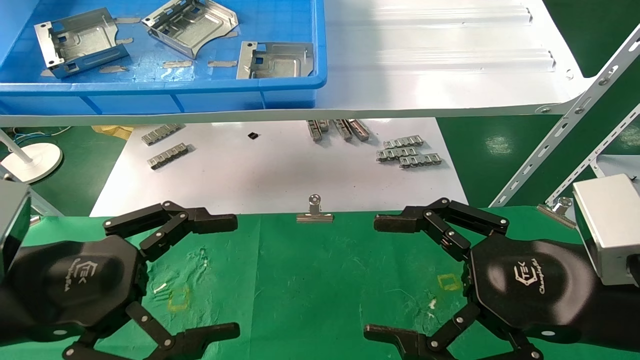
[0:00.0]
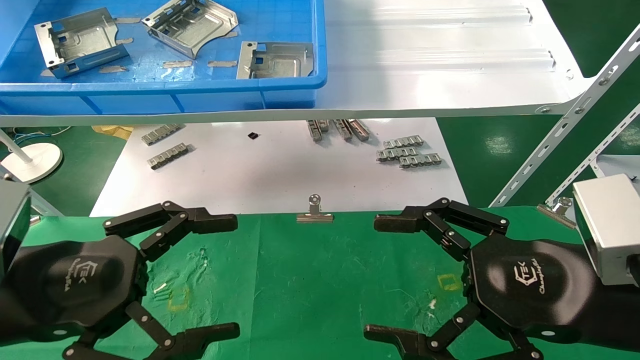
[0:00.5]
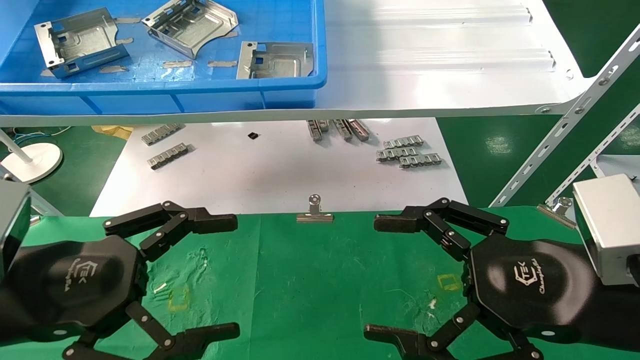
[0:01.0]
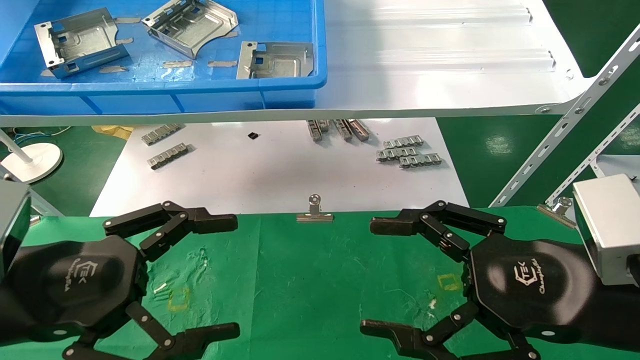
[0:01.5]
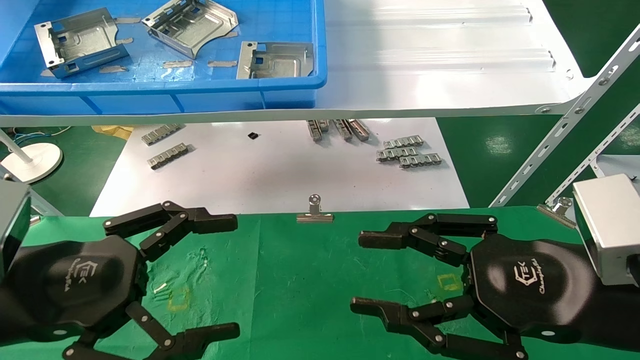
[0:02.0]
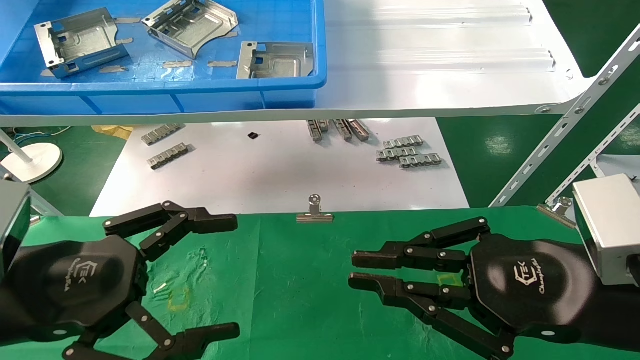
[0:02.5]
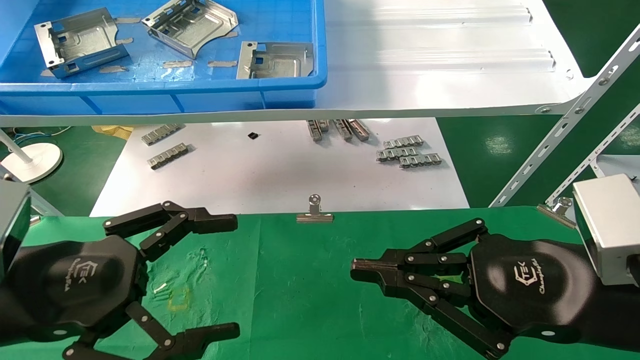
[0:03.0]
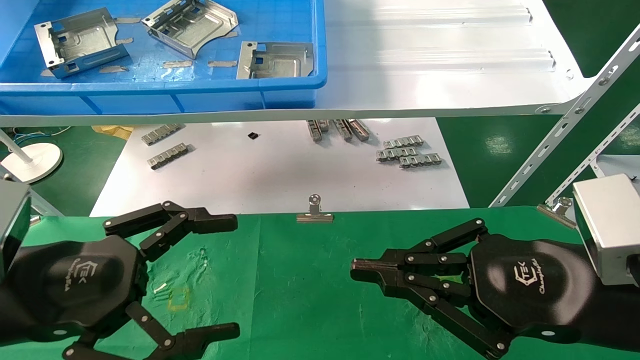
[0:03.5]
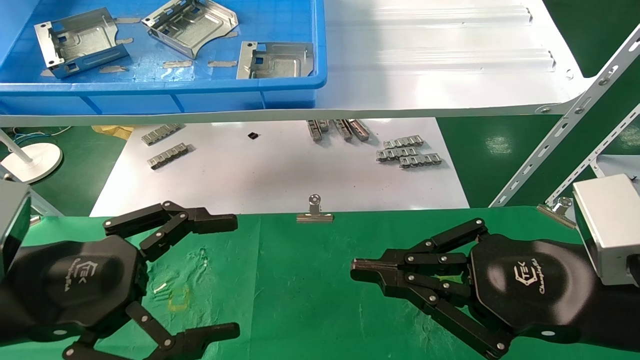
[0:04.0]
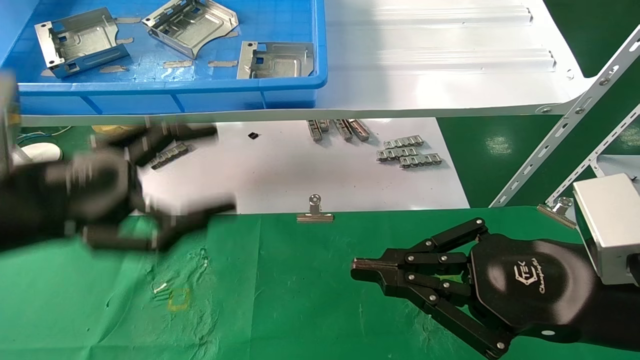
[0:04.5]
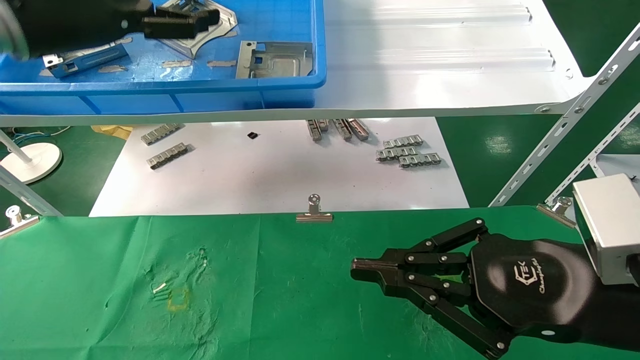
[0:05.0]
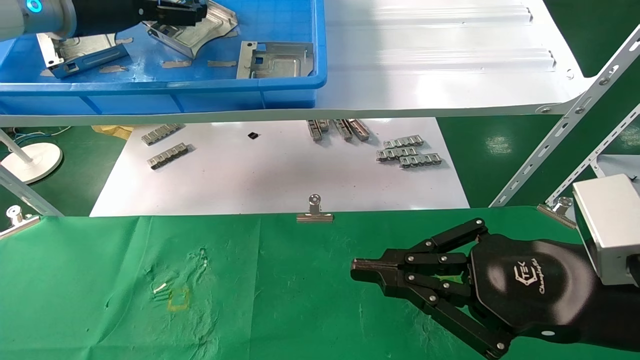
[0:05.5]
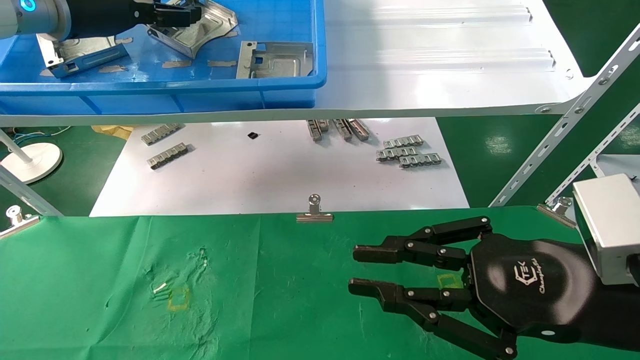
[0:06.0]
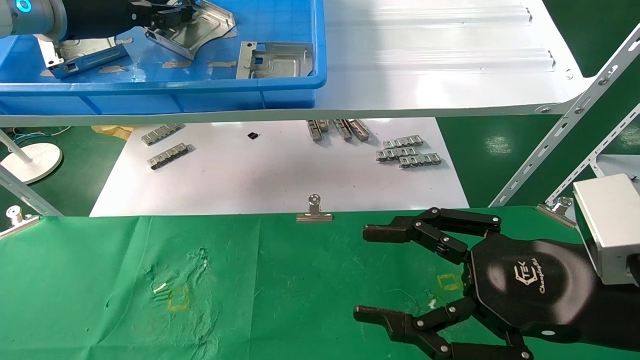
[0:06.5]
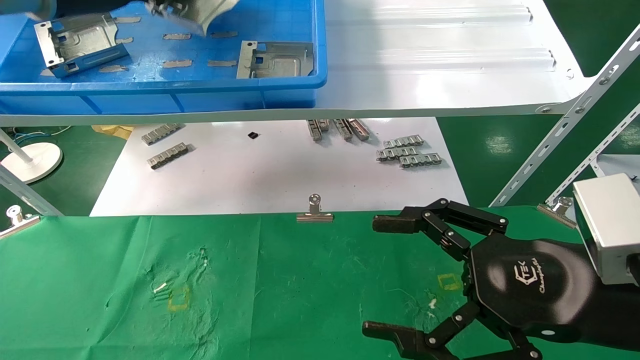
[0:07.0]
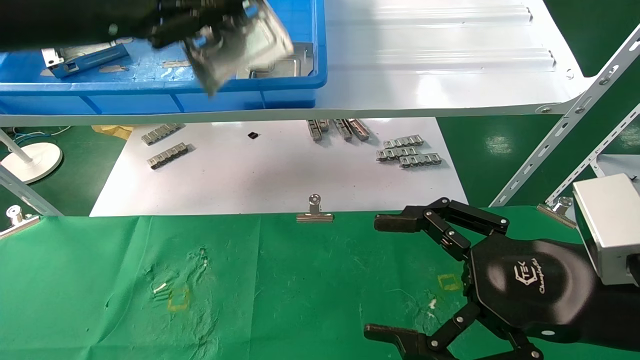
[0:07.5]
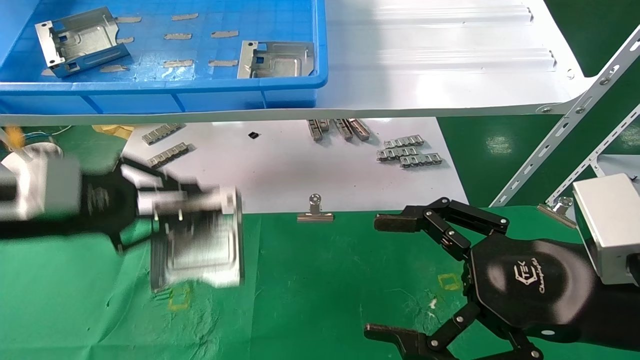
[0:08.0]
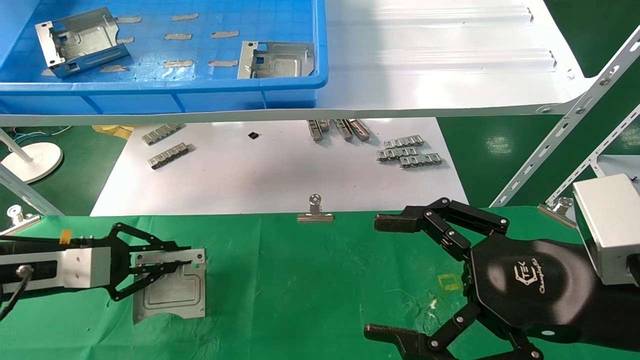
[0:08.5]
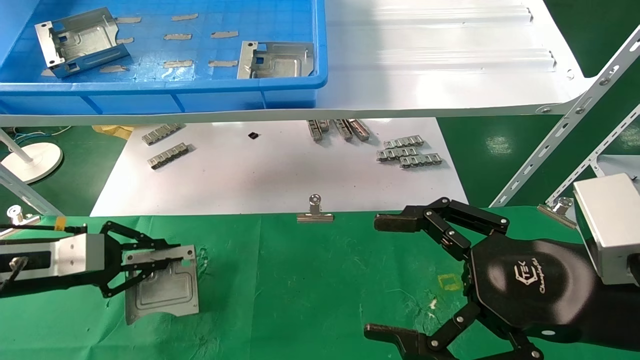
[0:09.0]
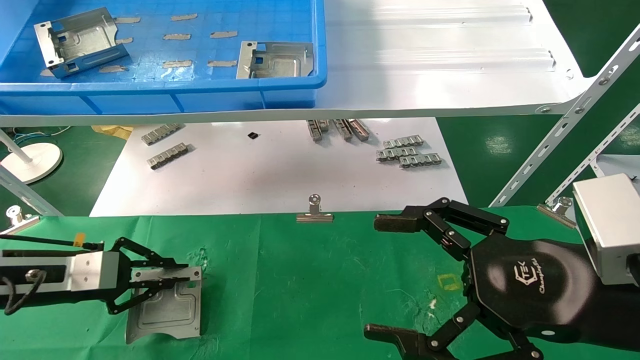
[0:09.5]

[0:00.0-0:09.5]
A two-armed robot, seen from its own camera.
Task of the whole recording: use the mechanical arm to pick up the parts and place them on the table.
Step, 0:05.0 to 0:06.5: Pick up the hard drive bracket from the feeding area.
0:00.0 to 0:02.0: The right gripper closes its fingers.
0:02.0 to 0:04.0: The right gripper closes its fingers.
0:04.0 to 0:05.5: The left gripper goes approximately 35 cm upward and forward.
0:05.5 to 0:07.5: The left gripper heads backward, covering approximately 10 cm, and closes, while the right gripper opens its fingers.
0:07.5 to 0:09.5: The left gripper goes about 30 cm downward.

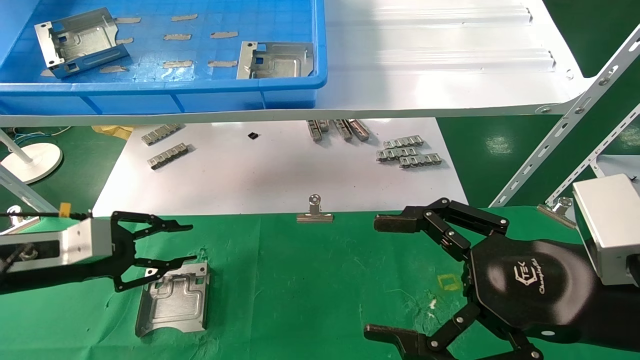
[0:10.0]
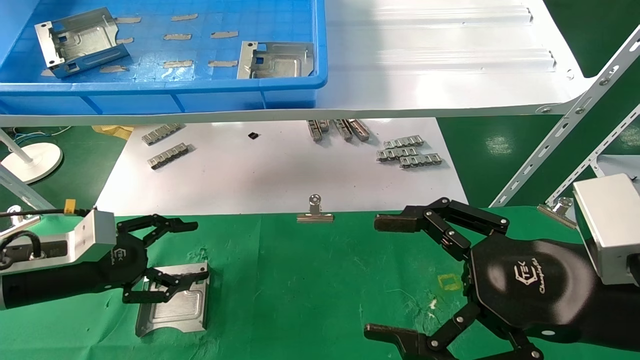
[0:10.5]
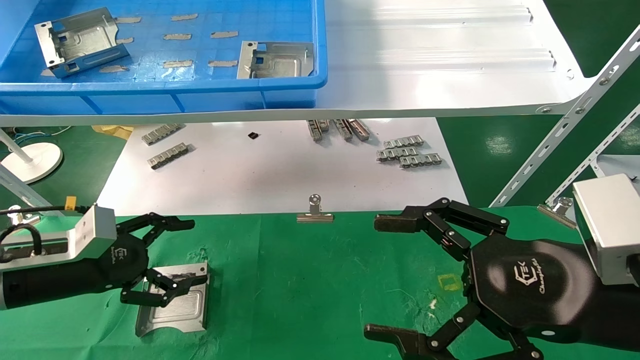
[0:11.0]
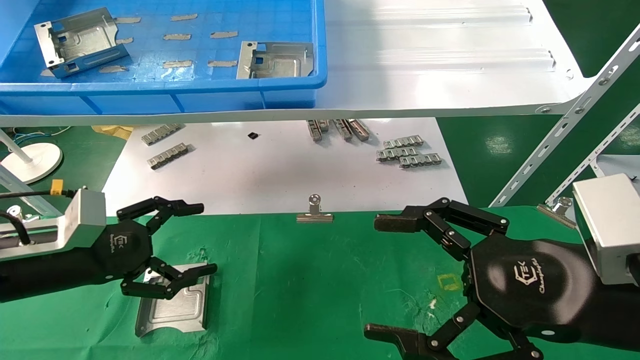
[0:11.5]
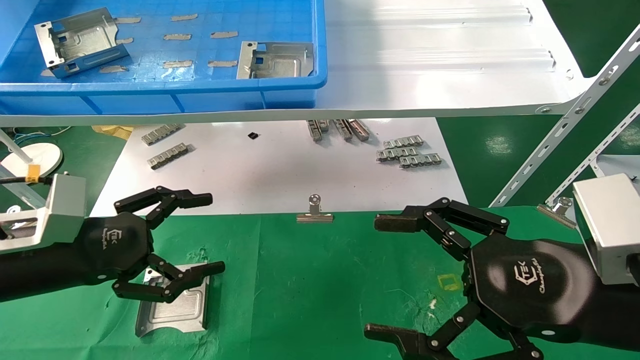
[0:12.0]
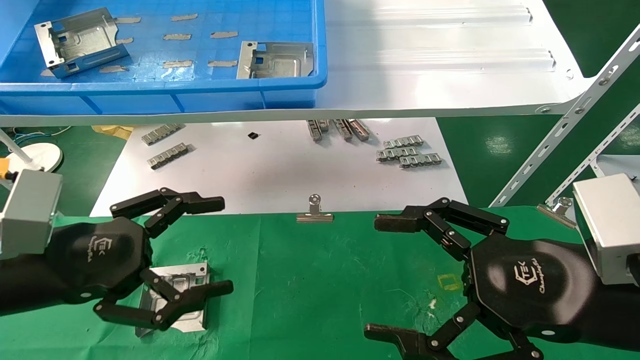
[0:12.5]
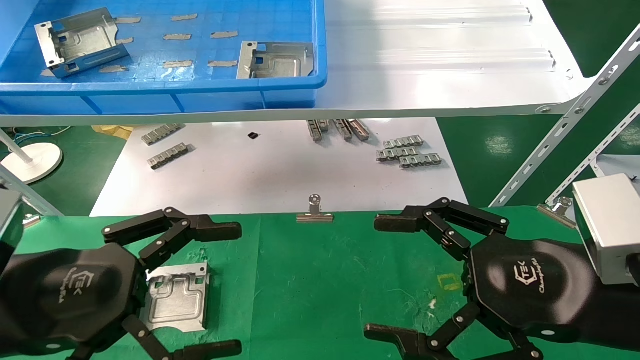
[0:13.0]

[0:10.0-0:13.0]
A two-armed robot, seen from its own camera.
Task of the whole recording: use the mechanical arm to pick up the parts and place them on the table.
0:10.0 to 0:11.5: The left gripper opens up.
0:11.5 to 0:13.0: The left gripper heads backward and to the right, covering roughly 15 cm.
